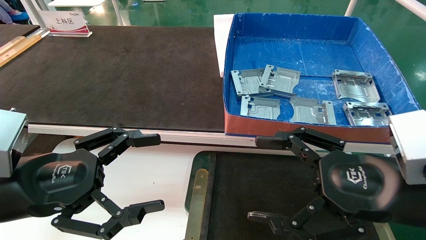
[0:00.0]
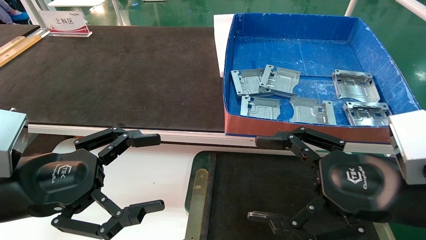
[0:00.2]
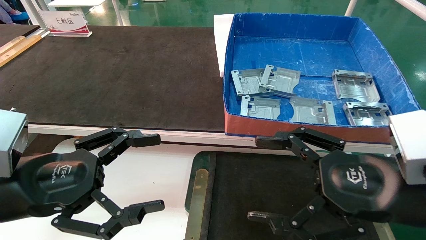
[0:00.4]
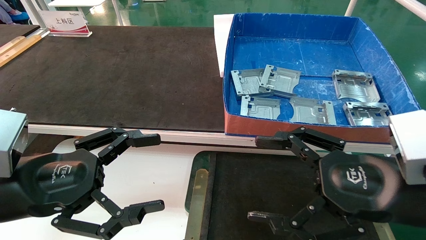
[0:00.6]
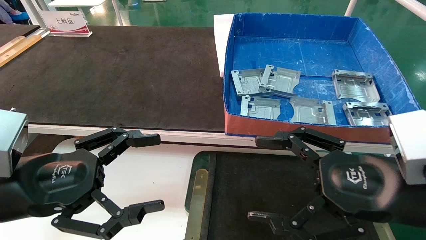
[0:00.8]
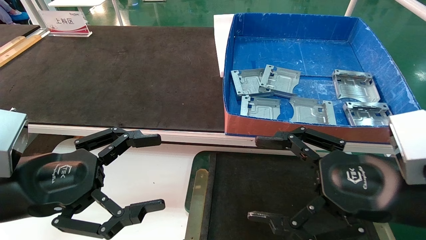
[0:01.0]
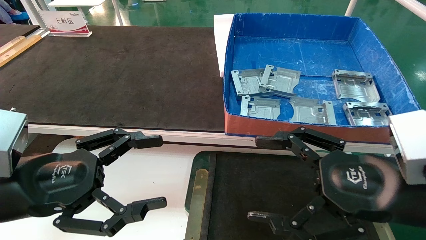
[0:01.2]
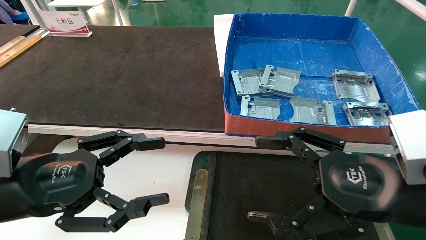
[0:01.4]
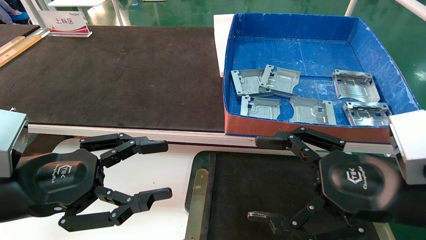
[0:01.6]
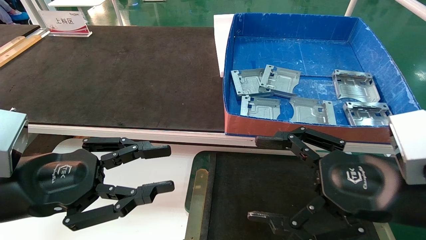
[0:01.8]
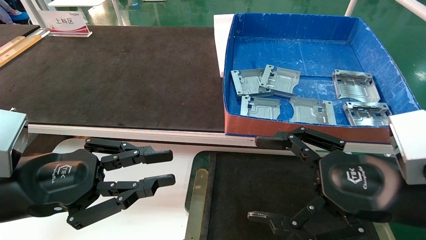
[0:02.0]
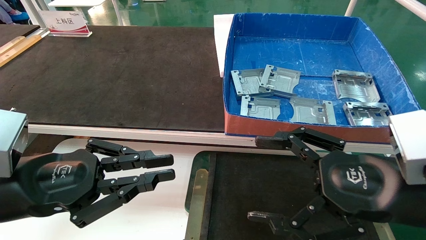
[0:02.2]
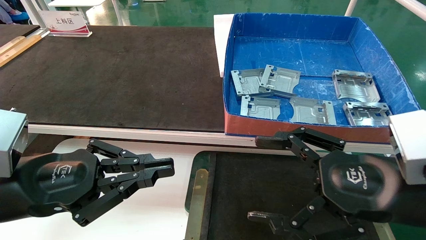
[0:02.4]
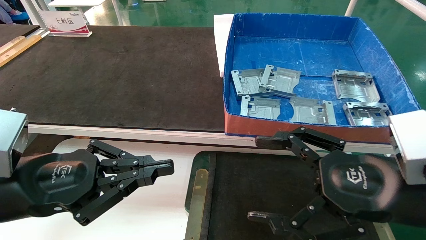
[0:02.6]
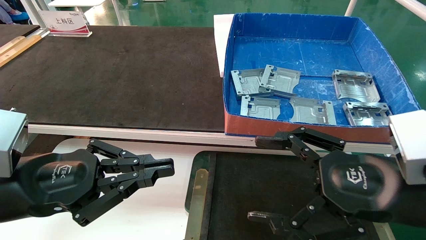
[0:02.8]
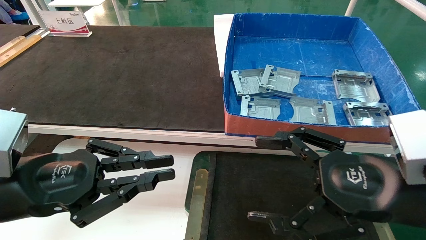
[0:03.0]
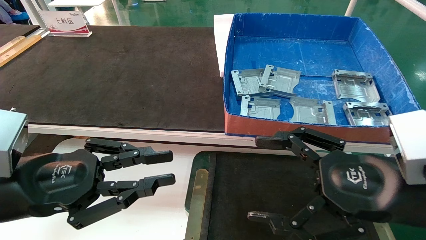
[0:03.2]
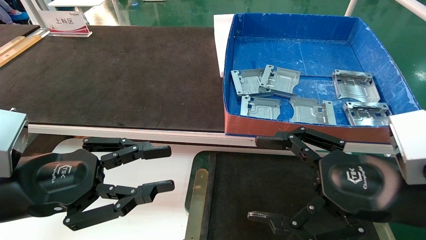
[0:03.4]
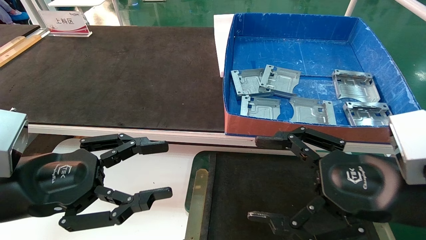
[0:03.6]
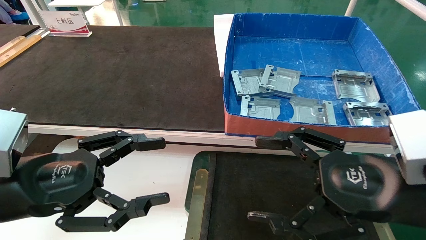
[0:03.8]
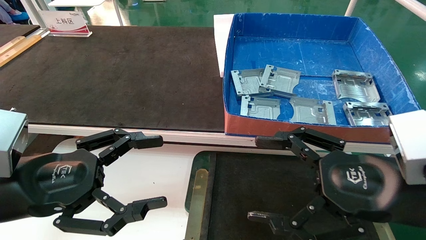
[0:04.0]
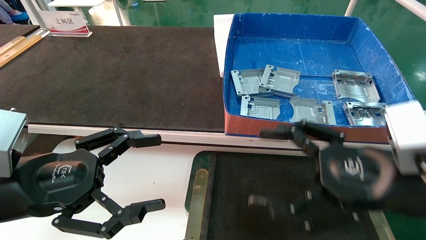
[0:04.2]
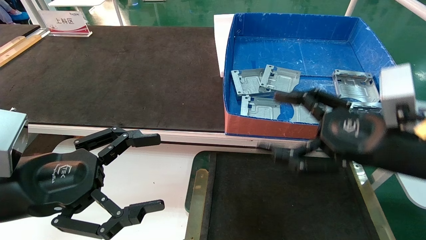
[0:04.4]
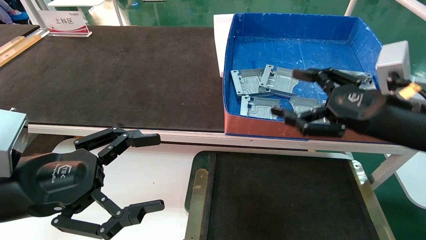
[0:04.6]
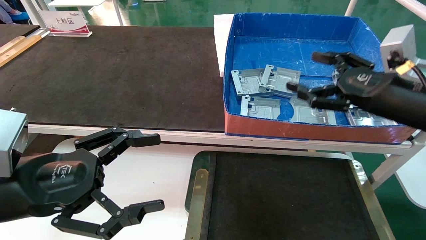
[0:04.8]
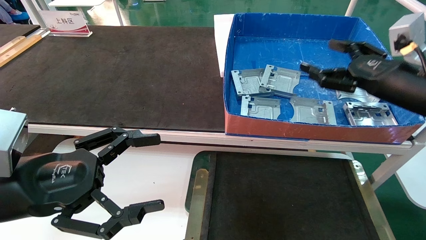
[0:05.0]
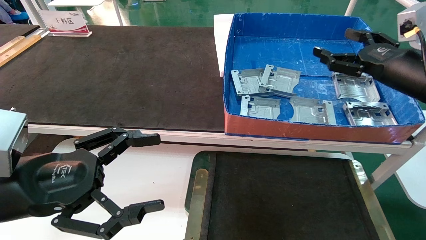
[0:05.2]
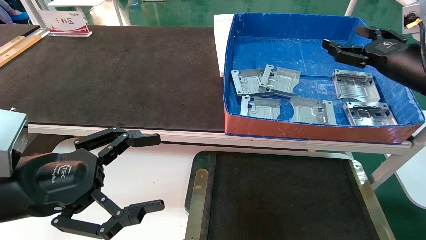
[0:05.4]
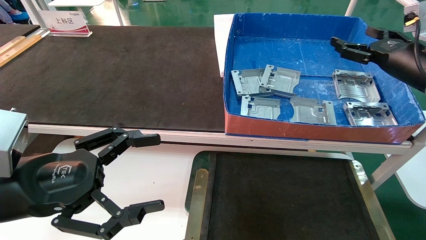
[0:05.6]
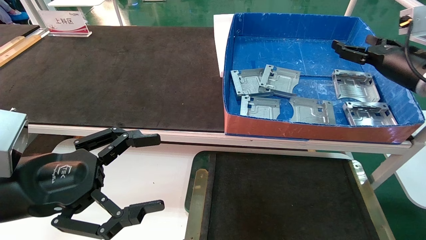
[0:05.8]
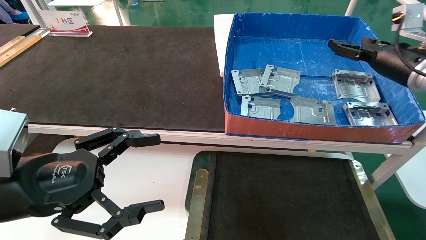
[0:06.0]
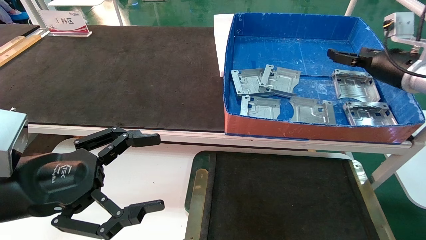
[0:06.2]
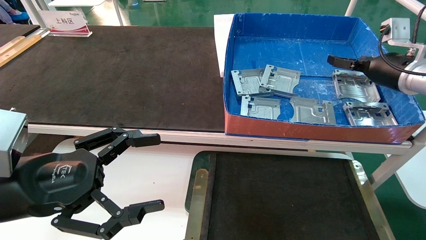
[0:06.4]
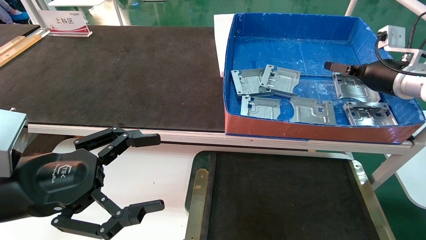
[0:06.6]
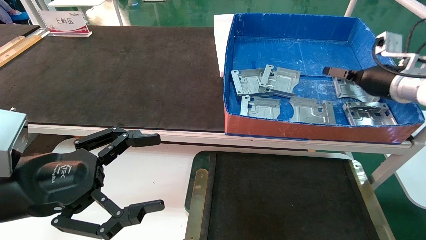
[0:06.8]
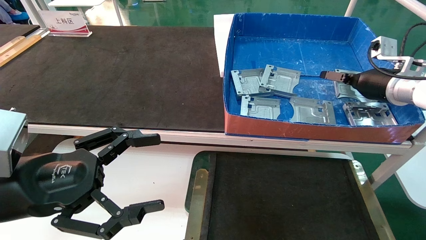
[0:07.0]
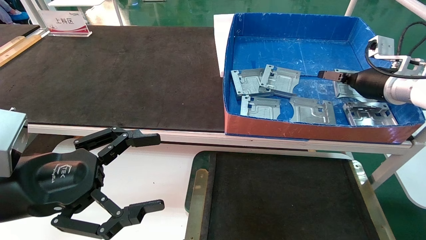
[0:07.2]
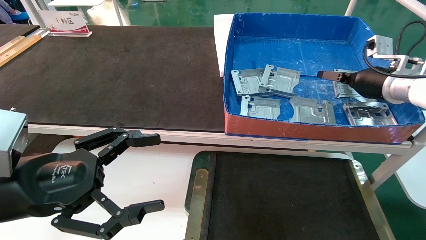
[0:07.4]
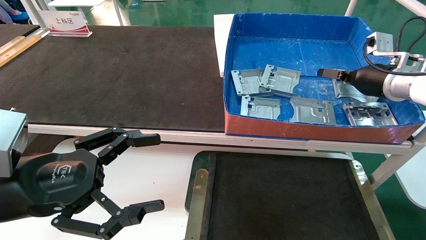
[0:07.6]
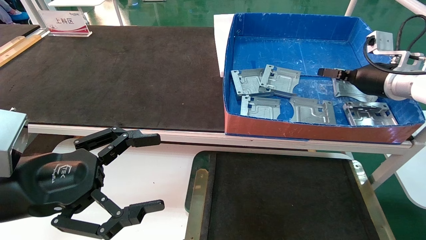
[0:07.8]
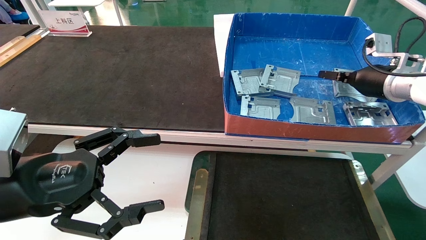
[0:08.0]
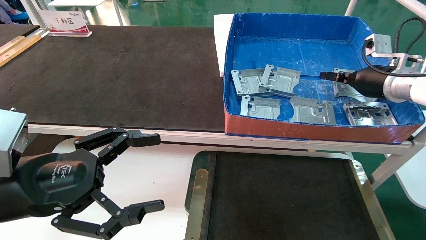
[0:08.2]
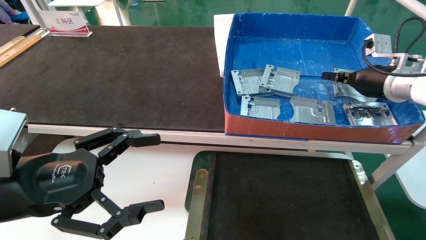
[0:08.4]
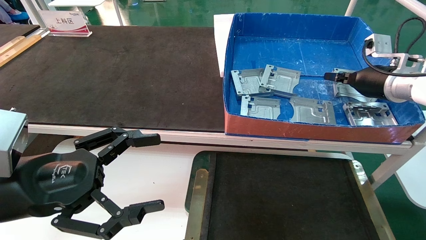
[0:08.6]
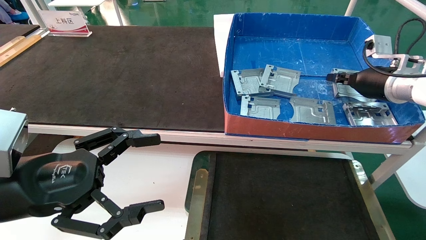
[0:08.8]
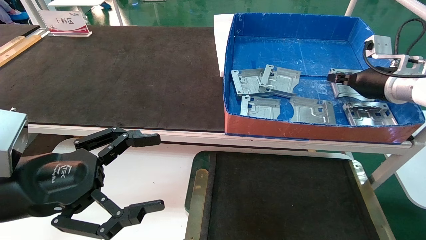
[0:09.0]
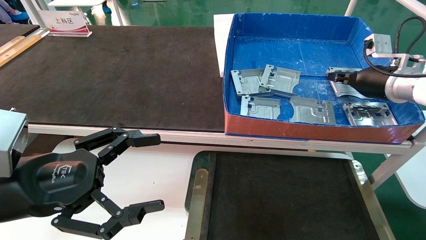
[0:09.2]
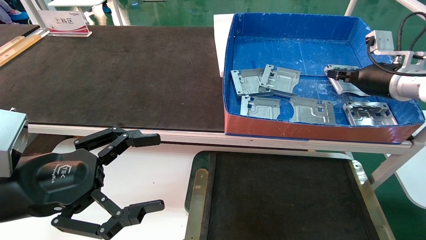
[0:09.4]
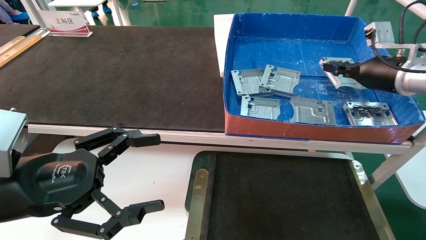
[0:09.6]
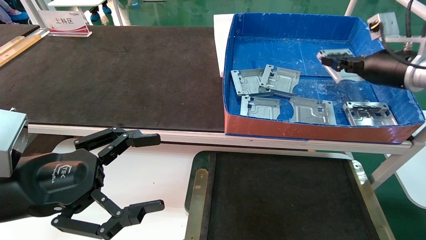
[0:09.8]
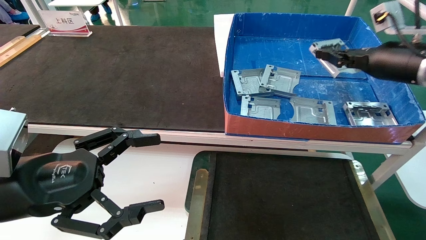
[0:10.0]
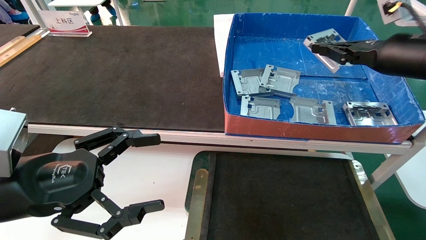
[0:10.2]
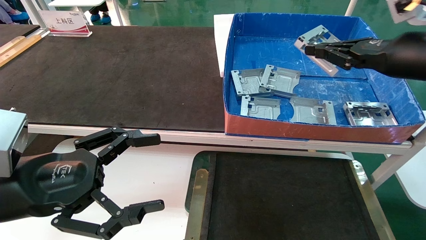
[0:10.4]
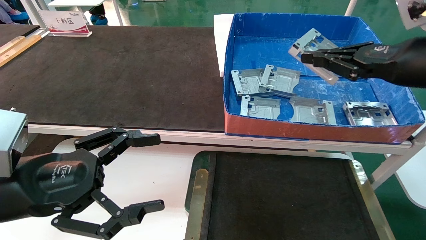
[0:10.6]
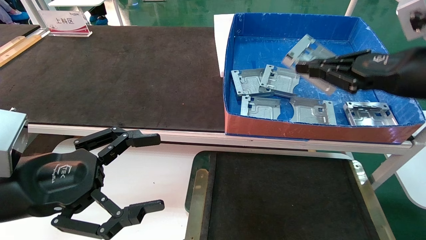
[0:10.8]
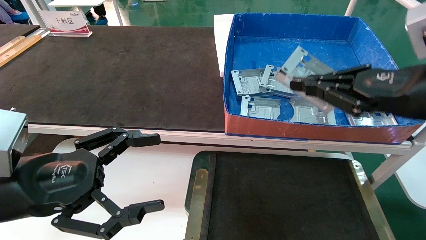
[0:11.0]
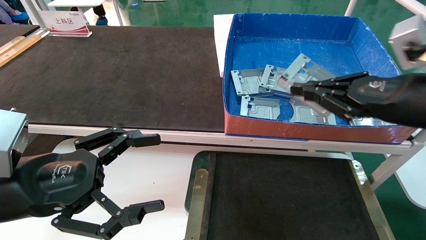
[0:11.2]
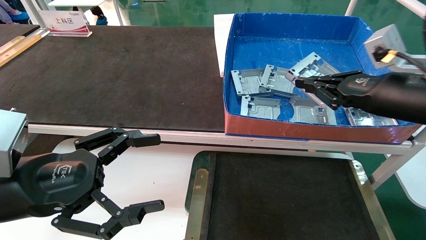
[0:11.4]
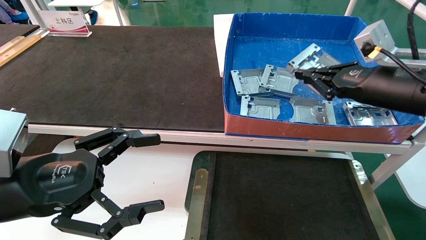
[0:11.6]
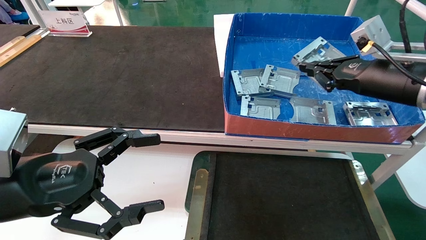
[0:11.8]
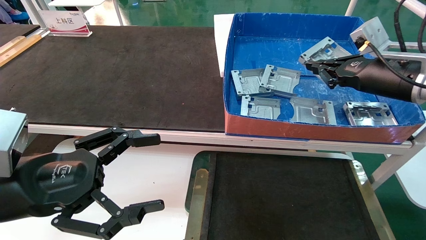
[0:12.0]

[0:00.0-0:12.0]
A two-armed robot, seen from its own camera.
Task of the whole recording: pick up parts and place them into a black container.
Step, 0:05.0 to 0:09.0: Pick up the hard drive bracket from the feeding area.
0:00.0 to 0:01.6: Both grippers stay about where they are.
0:01.6 to 0:03.0: The left gripper closes up.
0:03.0 to 0:04.4: The right gripper travels forward by some 5 cm. Meanwhile the left gripper opens up.
0:04.4 to 0:06.0: The right gripper moves forward and to the right, roughly 20 cm.
0:07.6 to 0:09.0: The right gripper closes up.
0:09.0 to 0:10.4: The right gripper shifts roughly 15 cm backward and upward.
0:10.4 to 0:12.0: The right gripper travels backward and back again, roughly 5 cm each way.

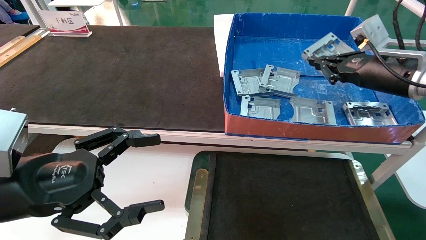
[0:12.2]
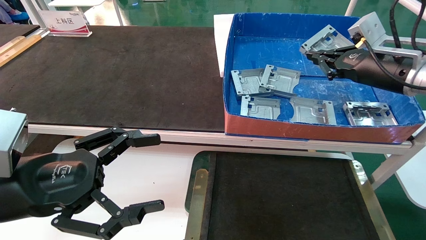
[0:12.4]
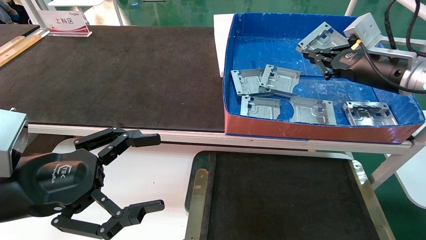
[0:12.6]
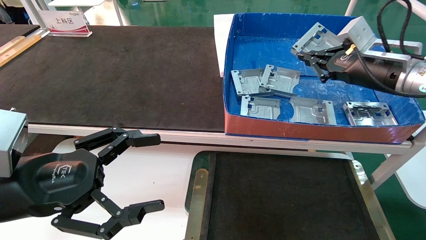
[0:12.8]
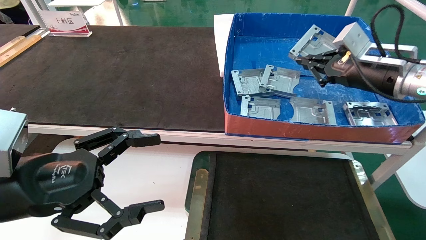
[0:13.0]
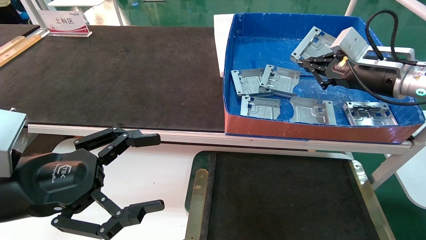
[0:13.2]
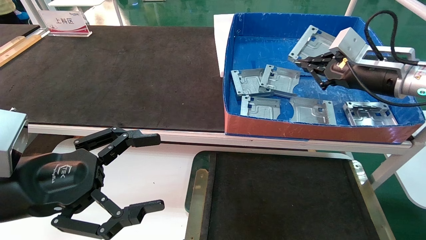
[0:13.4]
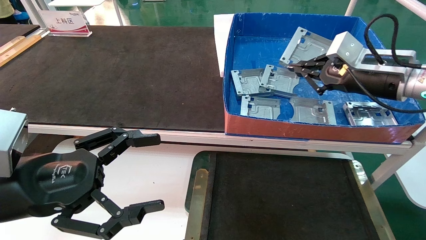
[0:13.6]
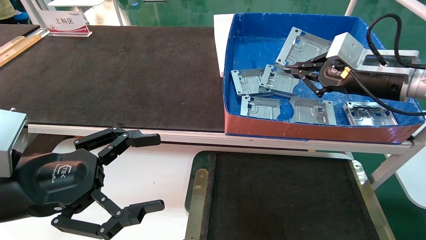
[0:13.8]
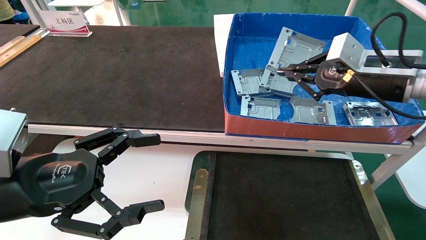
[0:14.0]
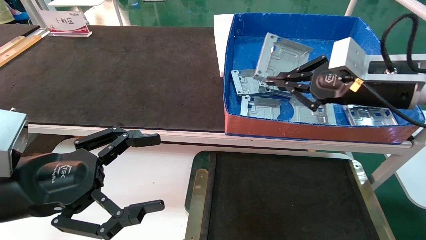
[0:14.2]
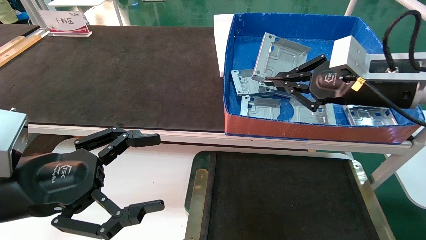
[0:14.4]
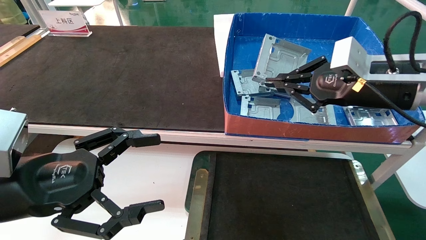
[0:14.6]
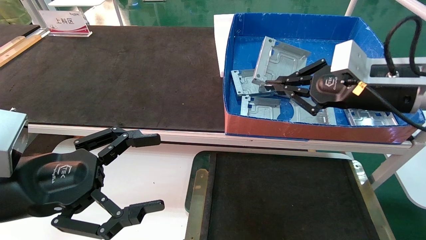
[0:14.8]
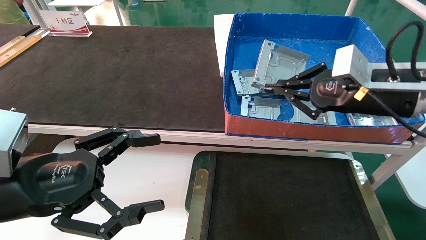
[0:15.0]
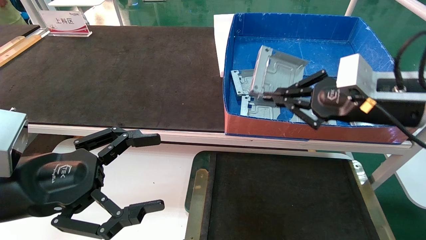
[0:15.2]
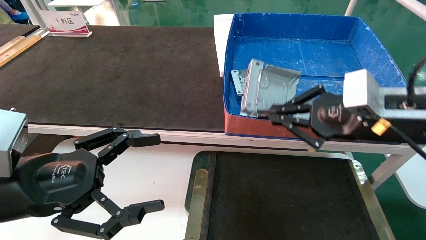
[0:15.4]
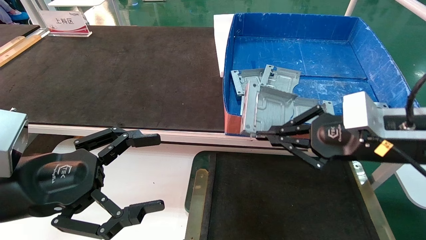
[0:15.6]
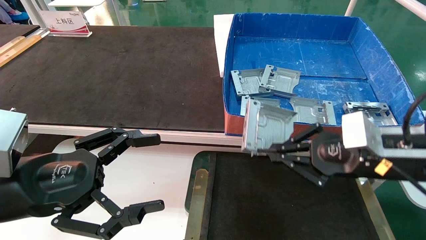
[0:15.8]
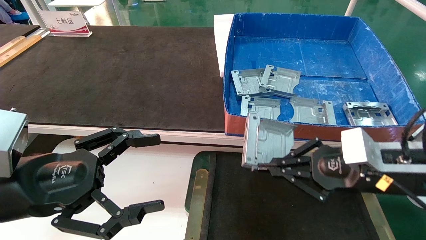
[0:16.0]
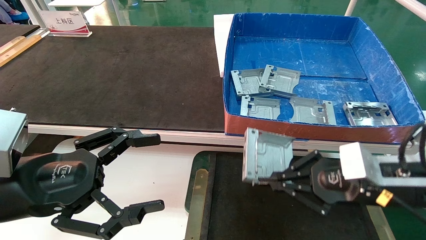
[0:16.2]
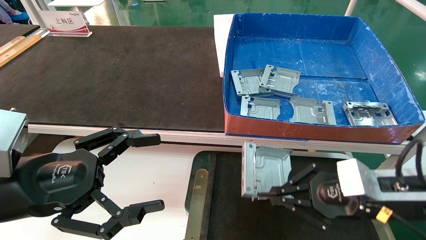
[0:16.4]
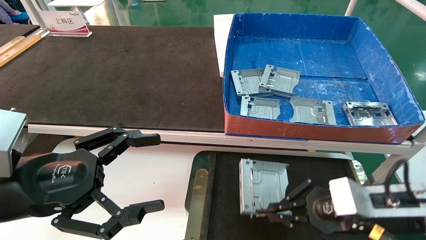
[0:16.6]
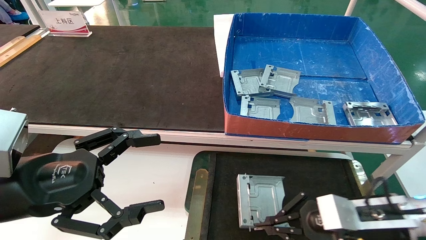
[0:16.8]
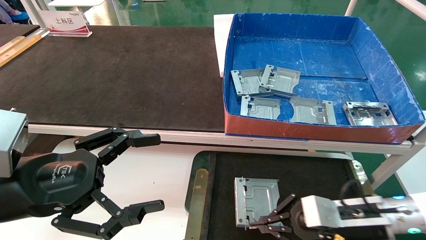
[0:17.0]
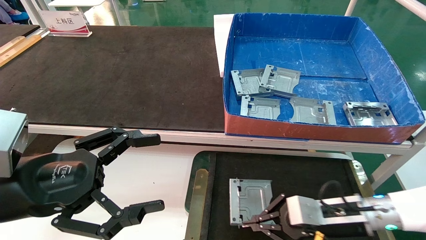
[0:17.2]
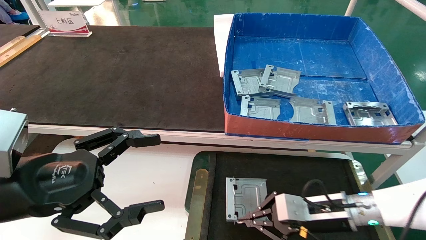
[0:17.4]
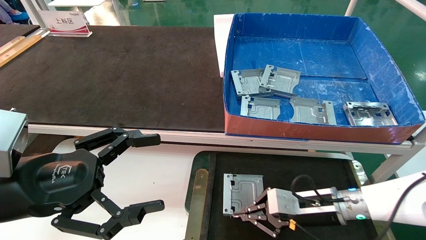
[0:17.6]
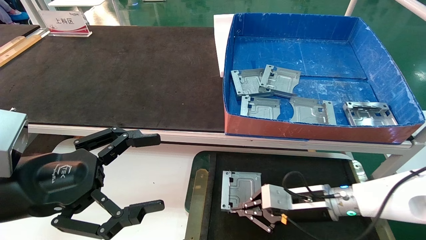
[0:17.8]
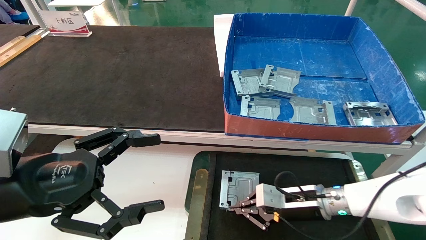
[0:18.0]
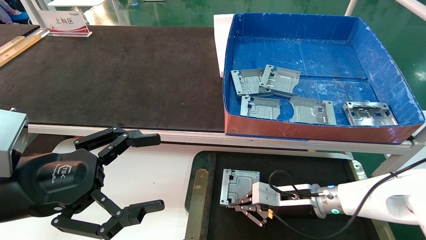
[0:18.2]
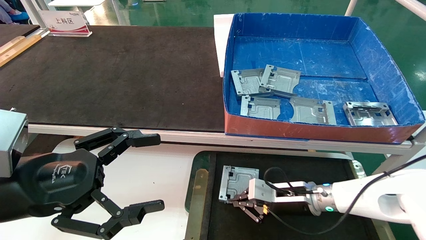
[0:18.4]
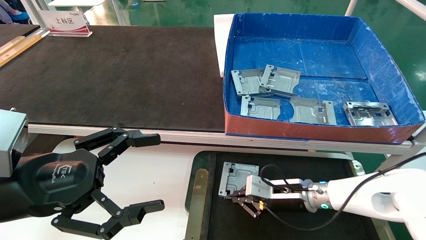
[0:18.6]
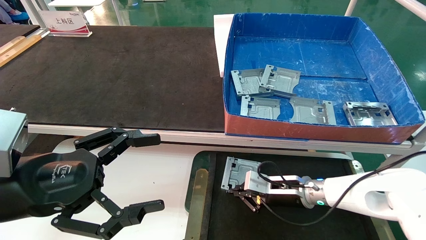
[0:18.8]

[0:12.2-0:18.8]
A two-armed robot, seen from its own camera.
Task of the whole recording: pick up parts and place them into a black container.
0:13.8 to 0:15.4: The right gripper travels backward by some 10 cm.
0:15.4 to 0:17.2: The right gripper travels downward by about 20 cm.
0:17.2 to 0:18.8: The right gripper goes about 10 cm forward and to the left.
